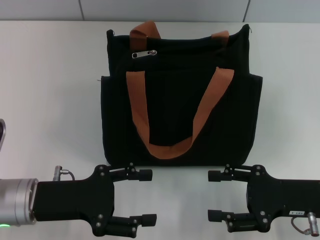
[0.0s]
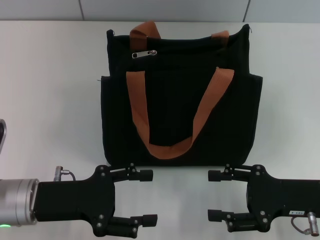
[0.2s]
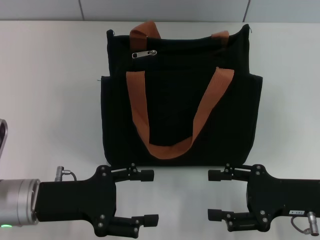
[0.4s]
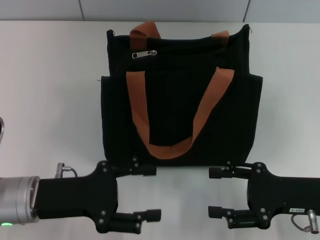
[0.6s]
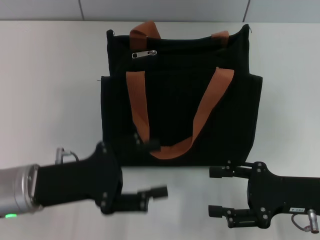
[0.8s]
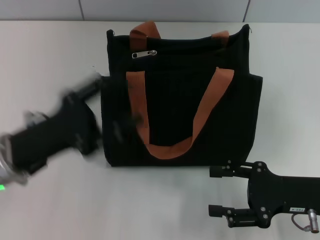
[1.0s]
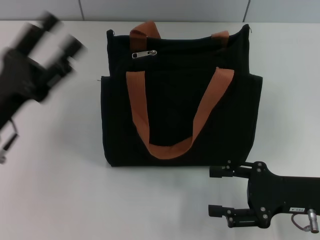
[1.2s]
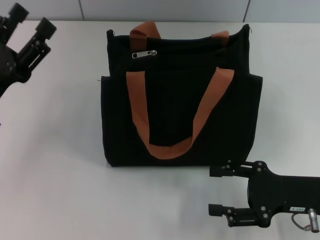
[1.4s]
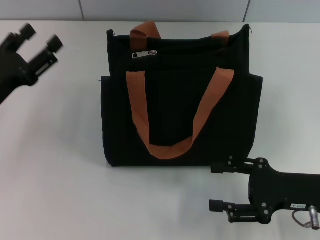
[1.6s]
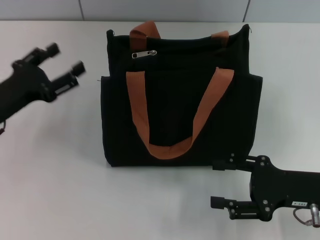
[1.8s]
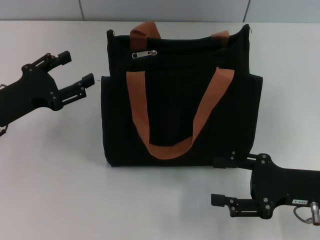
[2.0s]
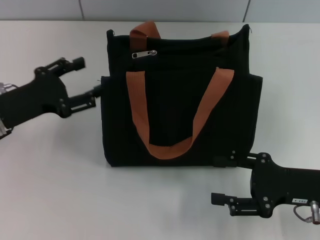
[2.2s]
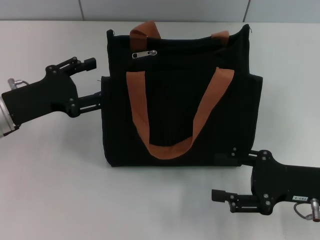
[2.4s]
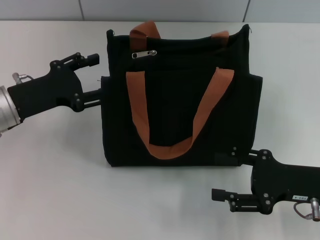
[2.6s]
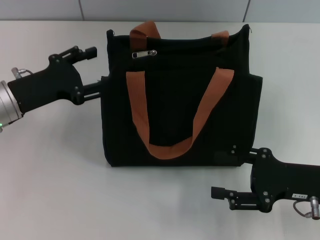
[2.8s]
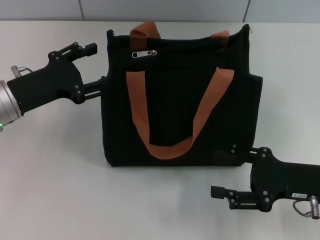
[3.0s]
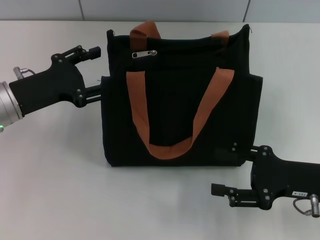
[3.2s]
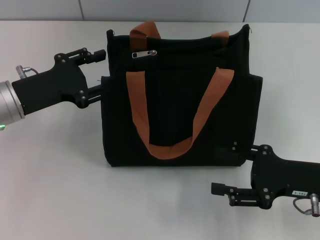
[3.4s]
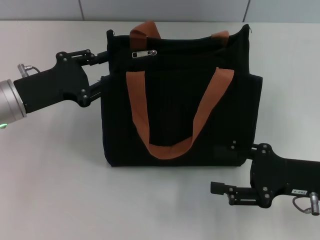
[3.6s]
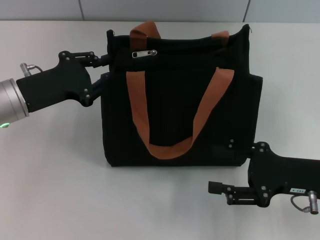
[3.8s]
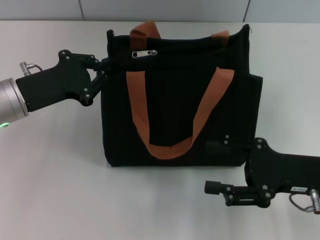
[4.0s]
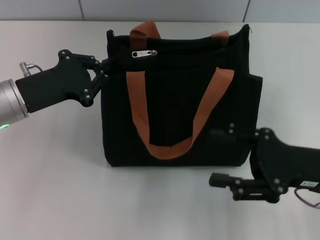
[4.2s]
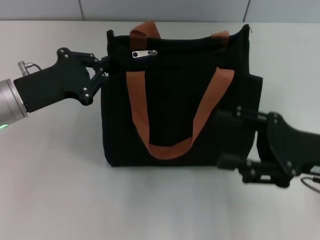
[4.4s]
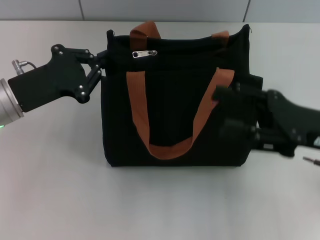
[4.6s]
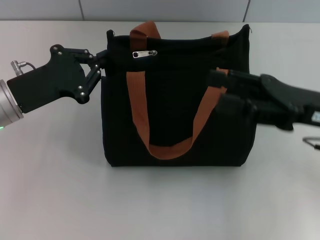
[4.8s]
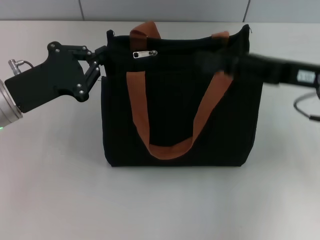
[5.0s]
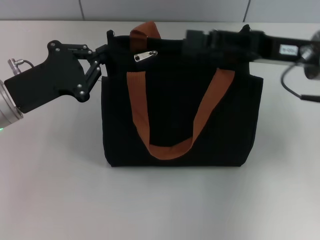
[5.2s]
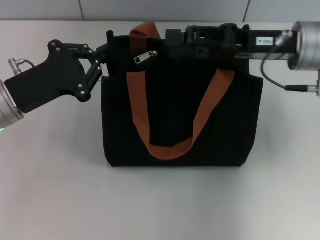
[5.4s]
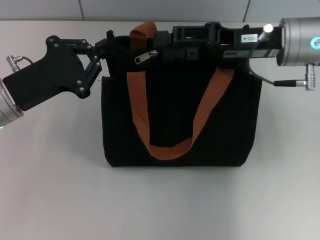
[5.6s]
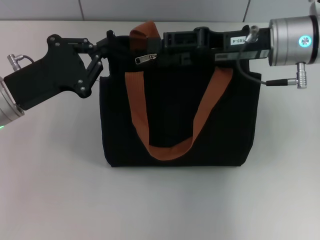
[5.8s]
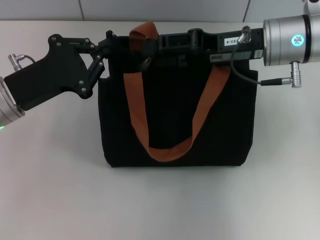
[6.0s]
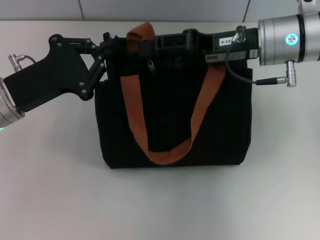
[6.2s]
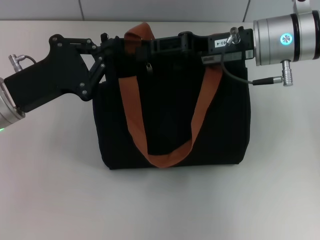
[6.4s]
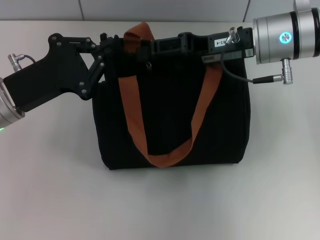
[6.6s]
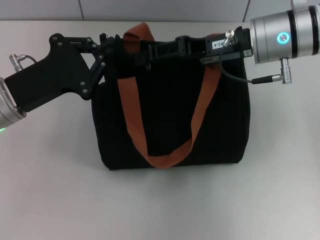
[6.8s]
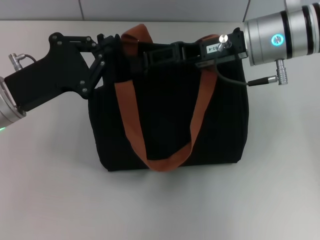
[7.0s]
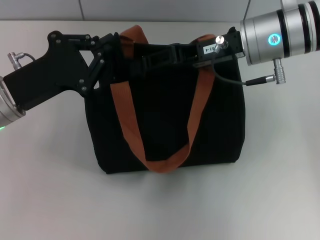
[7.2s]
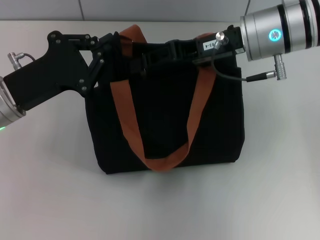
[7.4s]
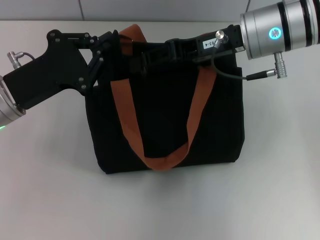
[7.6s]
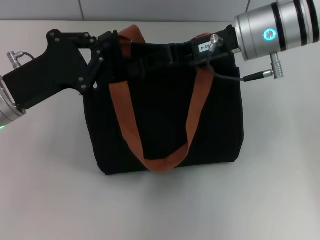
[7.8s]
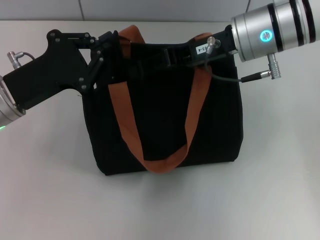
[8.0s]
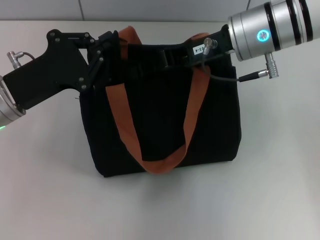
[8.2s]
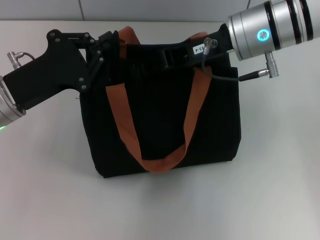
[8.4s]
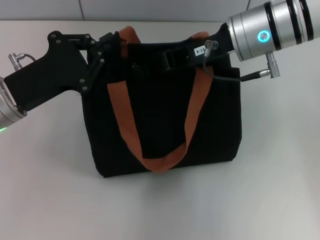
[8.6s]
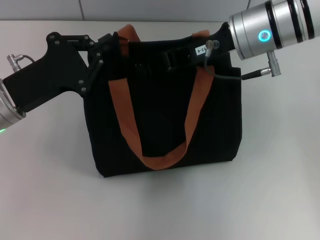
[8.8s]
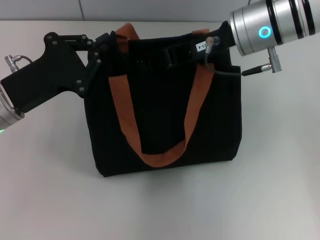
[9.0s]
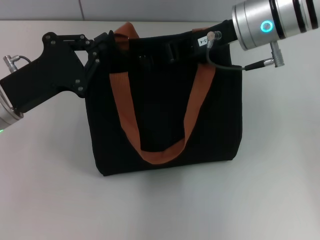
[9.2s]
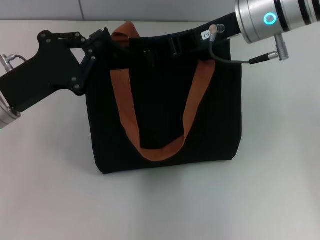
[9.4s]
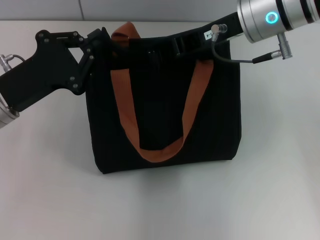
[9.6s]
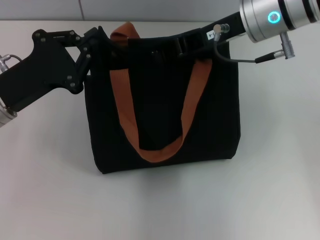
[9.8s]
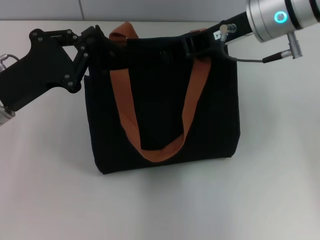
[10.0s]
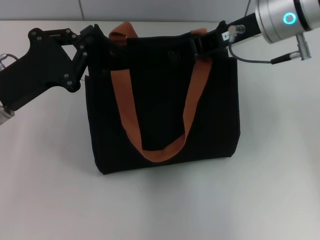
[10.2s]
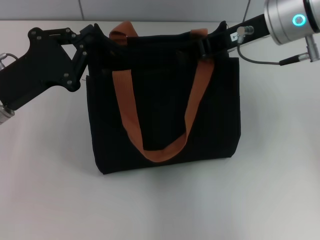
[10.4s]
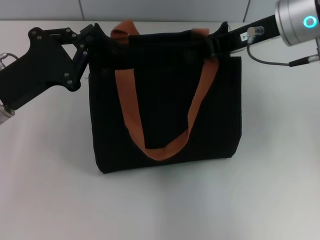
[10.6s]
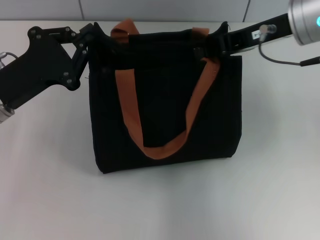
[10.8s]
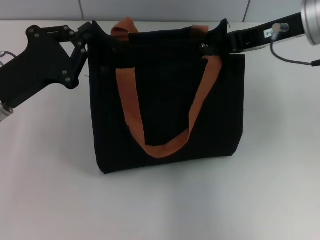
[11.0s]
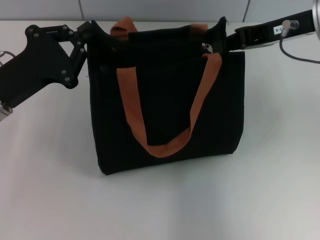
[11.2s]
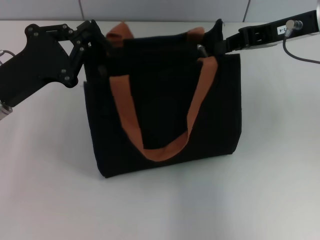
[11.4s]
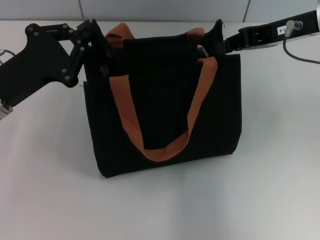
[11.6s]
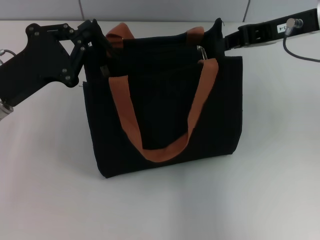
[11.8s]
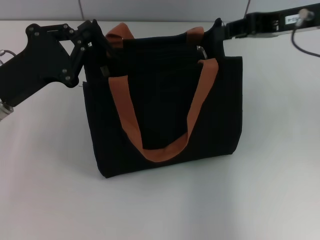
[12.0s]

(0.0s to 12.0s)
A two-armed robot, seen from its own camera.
Step, 0.0s - 11.2s: Pull up the zipper with your right hand.
0.0s - 1.6s: The left gripper is displaced to the left and forward by roughly 10 cm.
1.6s - 3.0s: The left gripper moves approximately 5 cm.
3.0s - 4.4s: The right gripper moves about 5 cm, while the left gripper closes up.
4.4s - 6.0s: The right gripper shifts some 15 cm forward, to the left and upward.
7.6s - 9.0s: The right gripper closes.
9.0s - 10.4s: The grippers make only small movements.
10.4s - 12.0s: The right gripper heads to the right, covering some 5 cm.

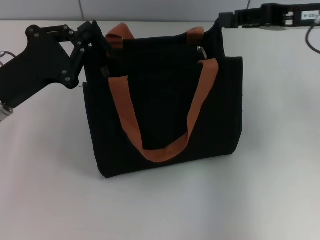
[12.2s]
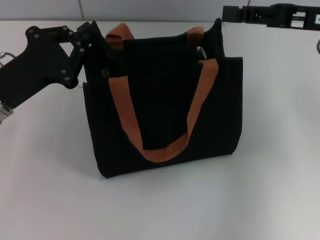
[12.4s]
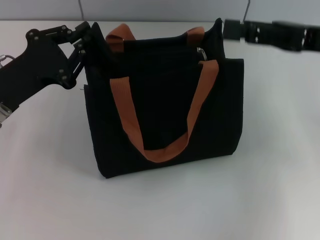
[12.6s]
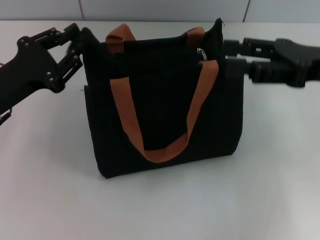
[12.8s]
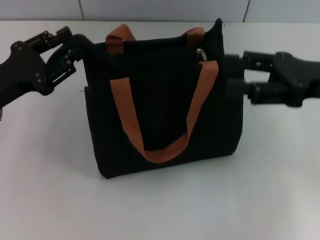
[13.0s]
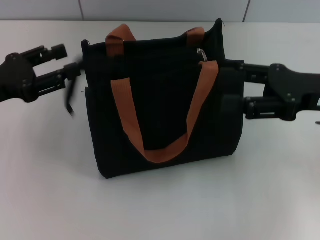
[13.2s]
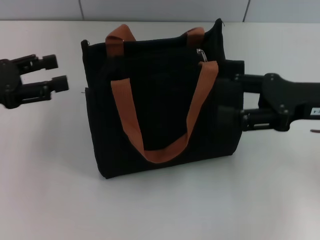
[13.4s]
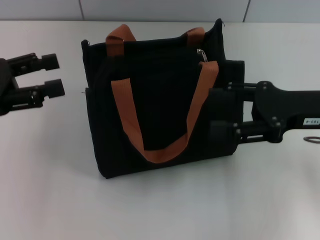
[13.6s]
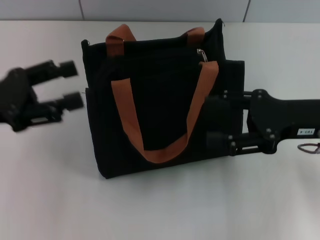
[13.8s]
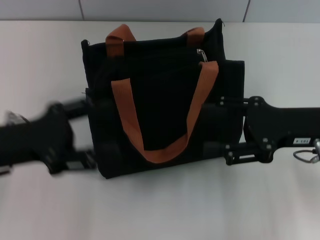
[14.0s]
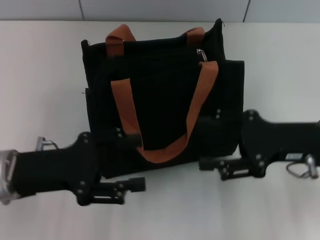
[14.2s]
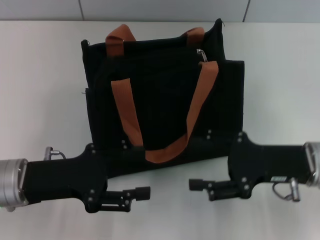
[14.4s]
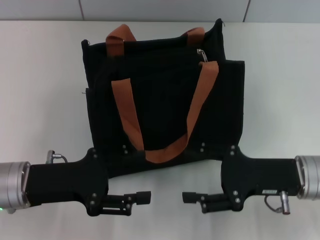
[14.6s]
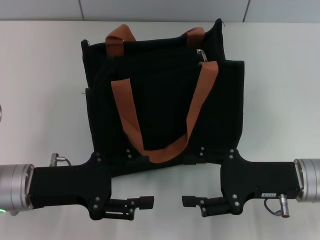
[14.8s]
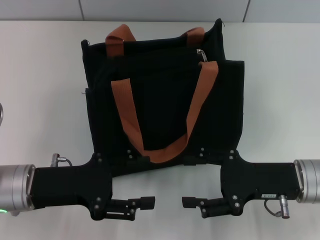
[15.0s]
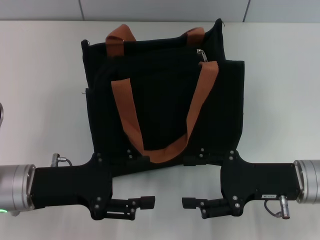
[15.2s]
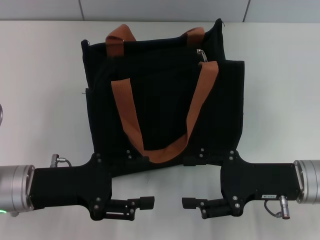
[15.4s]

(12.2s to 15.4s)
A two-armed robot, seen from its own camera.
12.2s - 13.8s: The left gripper goes roughly 5 cm to the left, and opens its fingers. Meanwhile the right gripper heads downward and backward, covering some 10 cm, and opens up.
13.8s - 15.4s: The right gripper is displaced downward by approximately 10 cm, while the left gripper is displaced downward and to the right by about 10 cm.

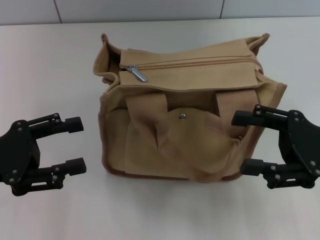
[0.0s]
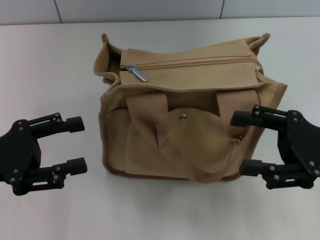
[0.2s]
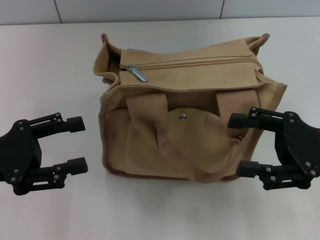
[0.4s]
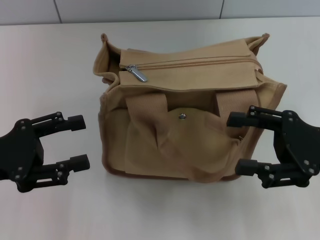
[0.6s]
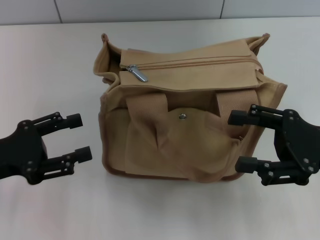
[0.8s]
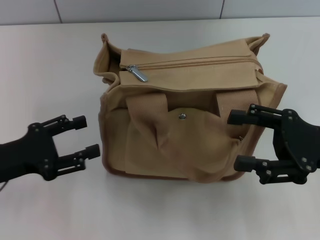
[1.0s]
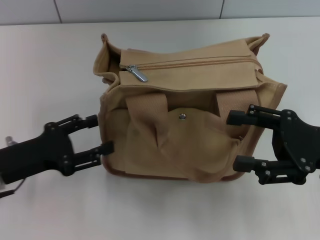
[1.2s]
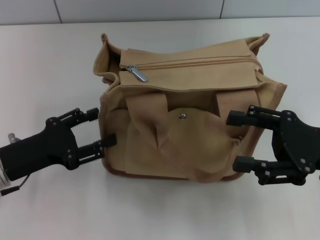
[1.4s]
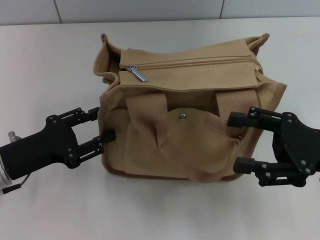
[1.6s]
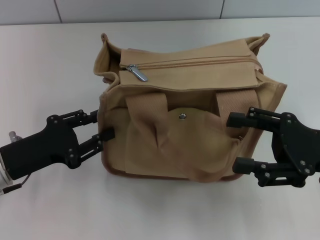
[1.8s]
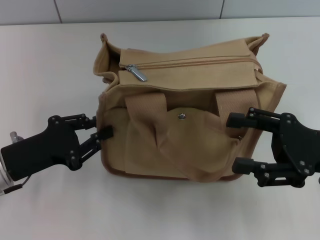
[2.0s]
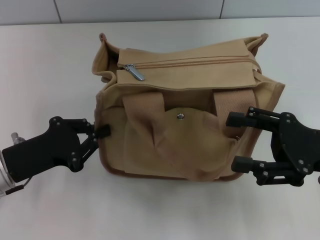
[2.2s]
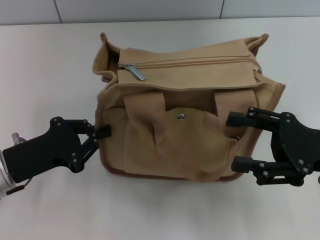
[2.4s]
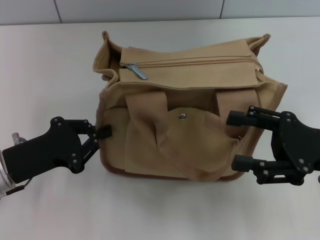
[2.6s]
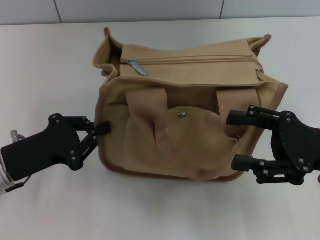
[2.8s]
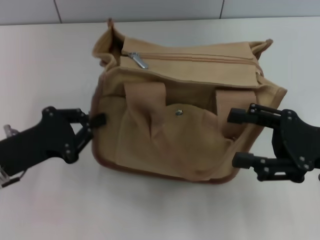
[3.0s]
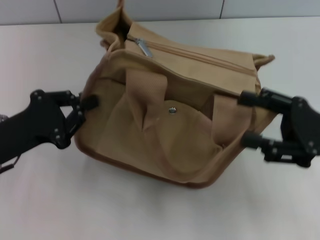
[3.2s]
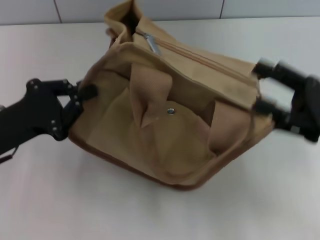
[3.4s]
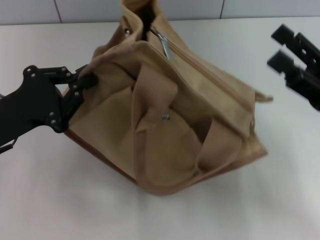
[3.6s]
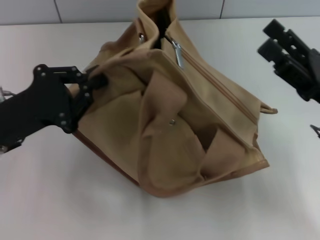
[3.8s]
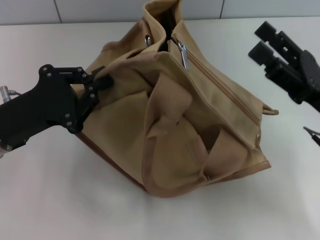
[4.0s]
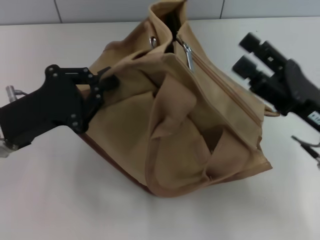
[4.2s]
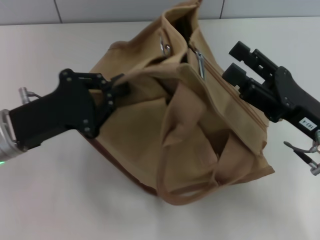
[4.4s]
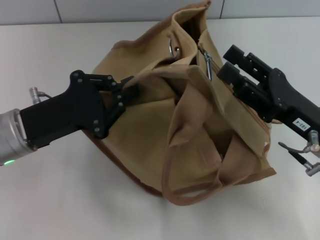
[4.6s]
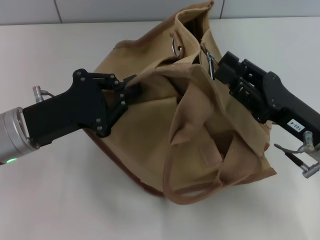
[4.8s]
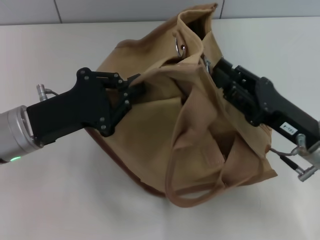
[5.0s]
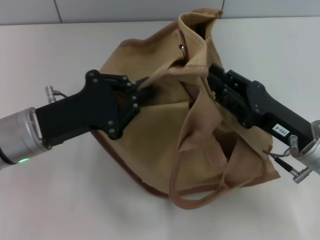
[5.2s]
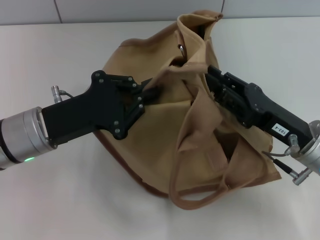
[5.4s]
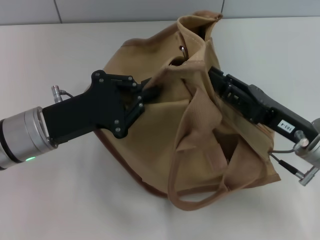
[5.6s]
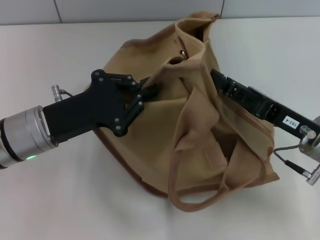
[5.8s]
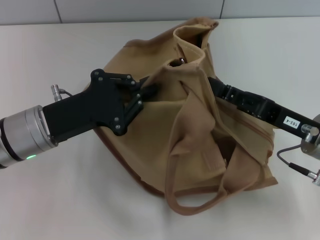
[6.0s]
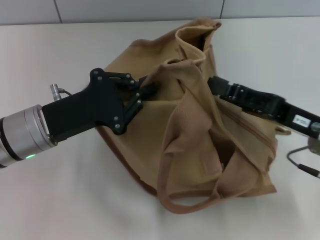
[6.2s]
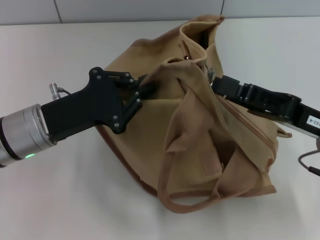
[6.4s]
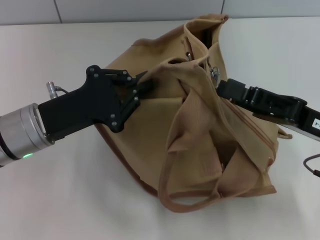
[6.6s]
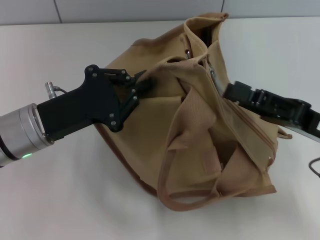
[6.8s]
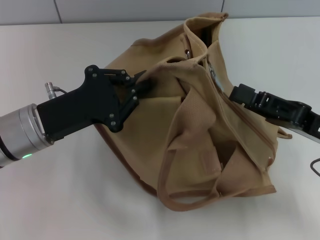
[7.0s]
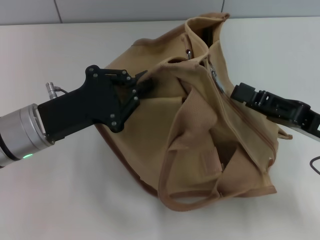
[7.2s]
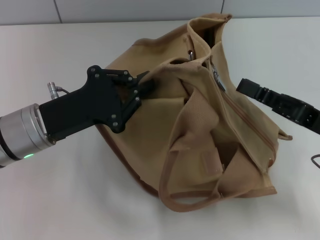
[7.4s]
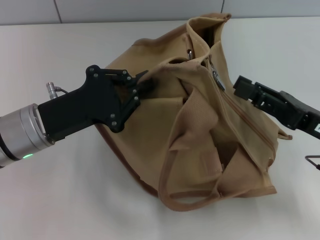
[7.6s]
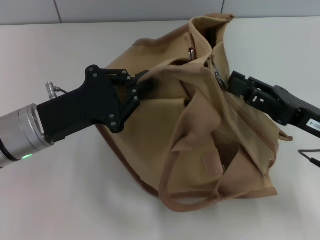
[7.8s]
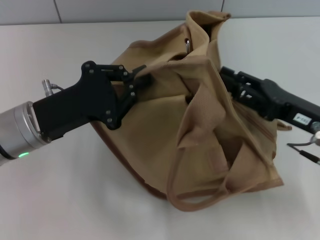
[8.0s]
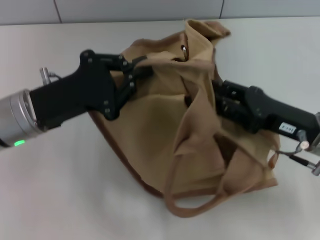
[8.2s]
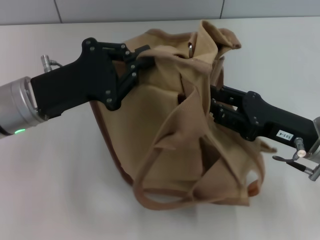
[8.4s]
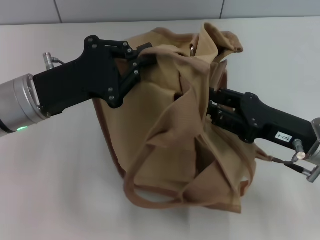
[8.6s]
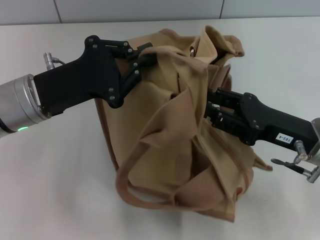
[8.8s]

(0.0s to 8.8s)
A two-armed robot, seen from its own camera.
0.0s - 1.4s: The left gripper is displaced downward by about 5 cm.
1.4s - 3.0s: The left gripper closes.
3.0s - 4.4s: The left gripper ends up some 5 cm from where it was.
4.4s - 5.8s: The right gripper closes.
5.8s - 7.4s: There are only small adjustments of the grippers.
